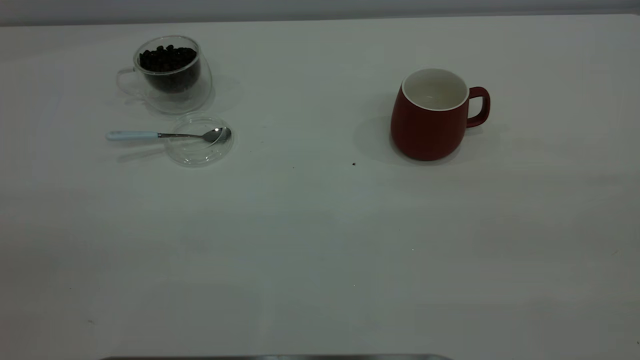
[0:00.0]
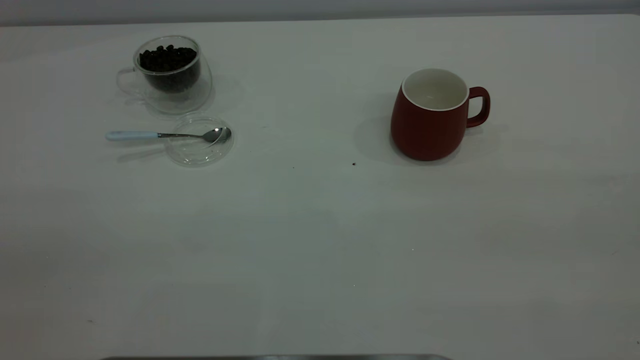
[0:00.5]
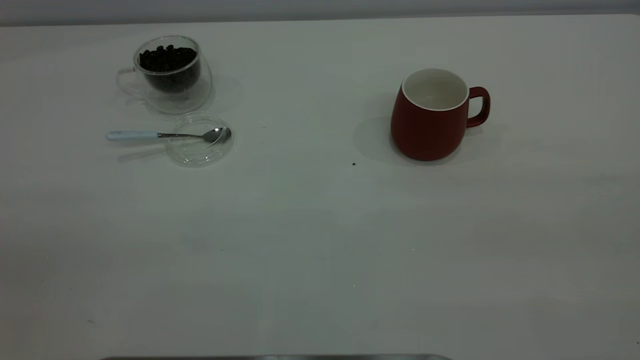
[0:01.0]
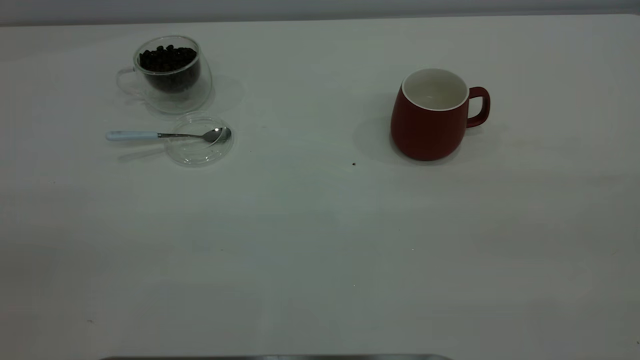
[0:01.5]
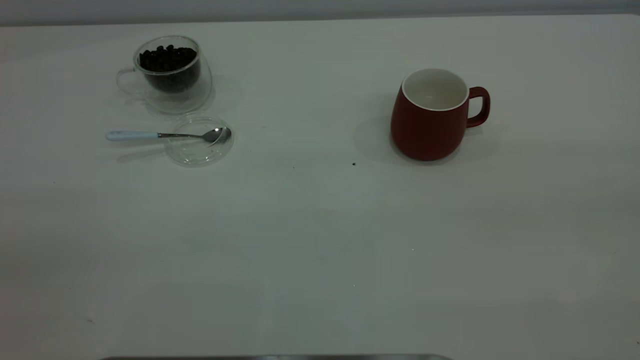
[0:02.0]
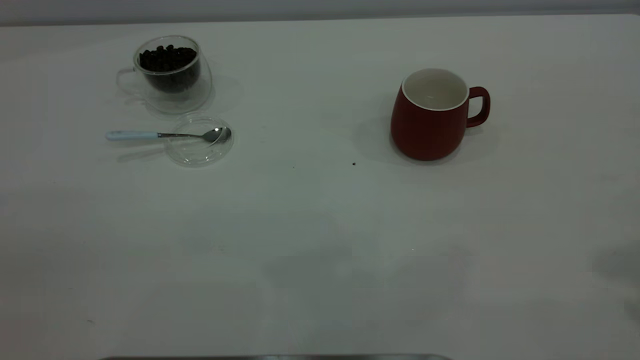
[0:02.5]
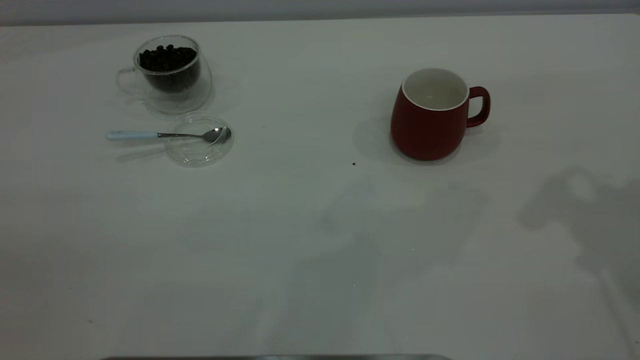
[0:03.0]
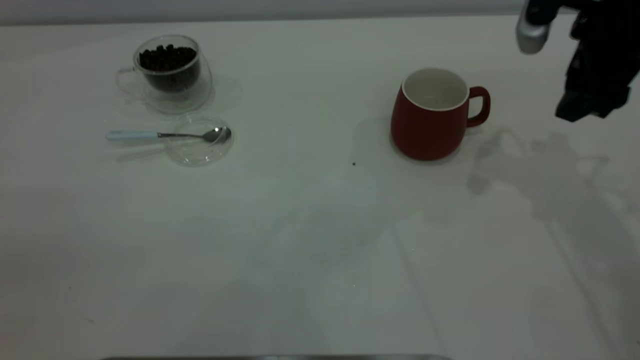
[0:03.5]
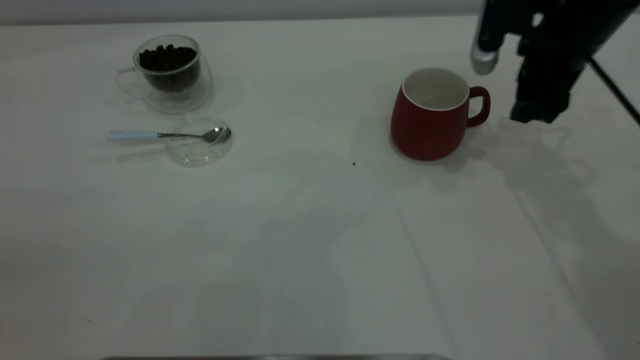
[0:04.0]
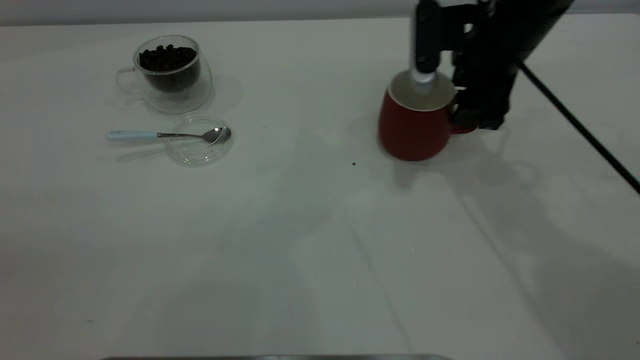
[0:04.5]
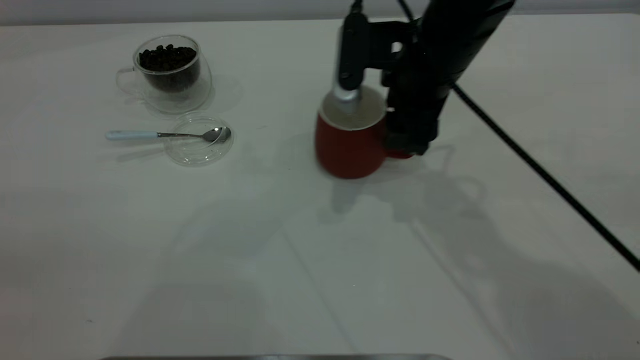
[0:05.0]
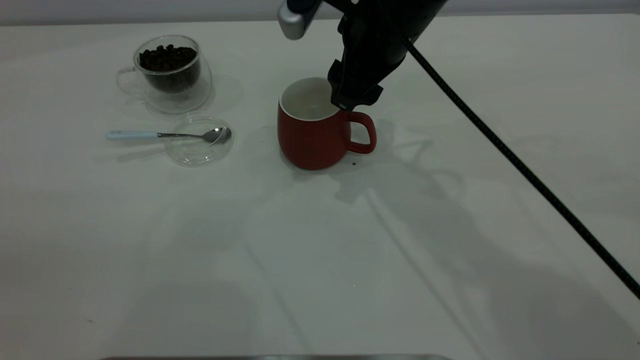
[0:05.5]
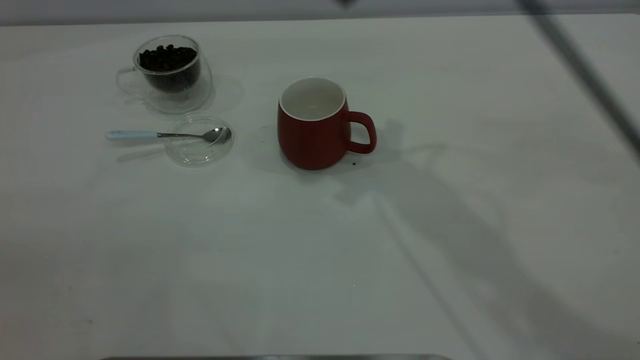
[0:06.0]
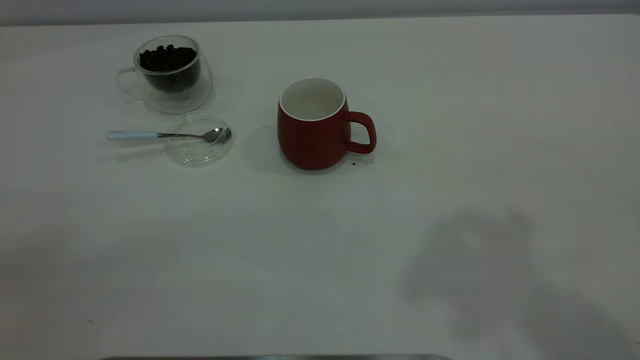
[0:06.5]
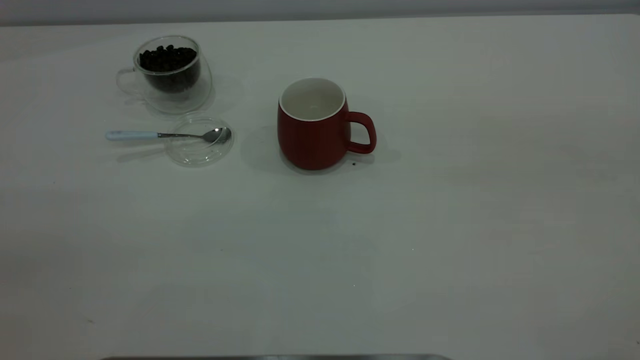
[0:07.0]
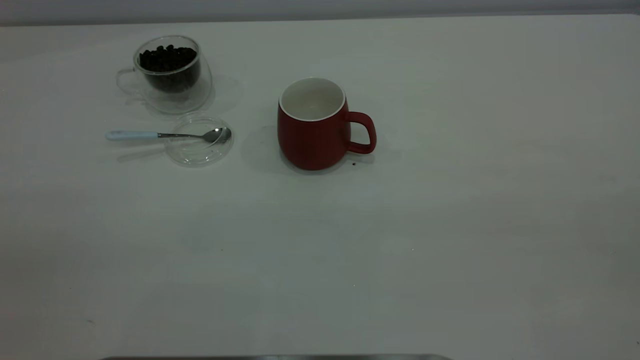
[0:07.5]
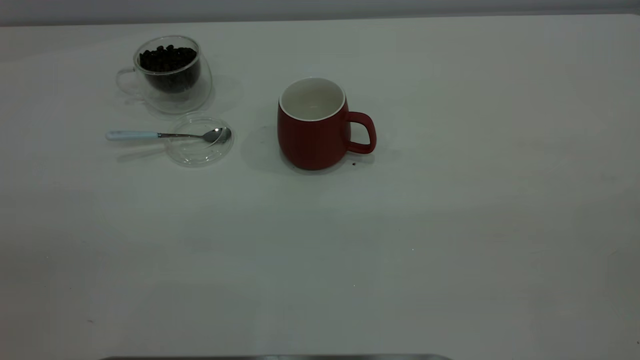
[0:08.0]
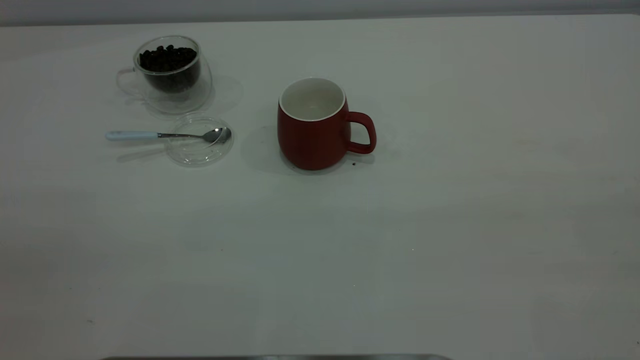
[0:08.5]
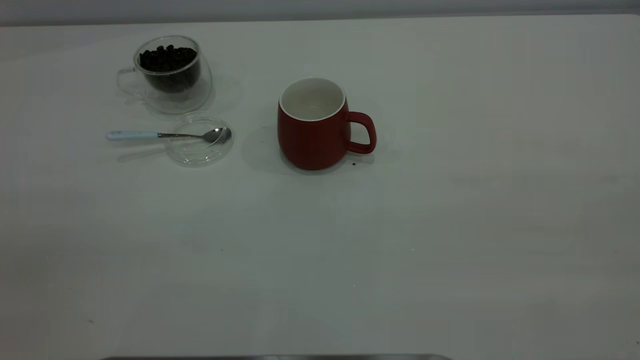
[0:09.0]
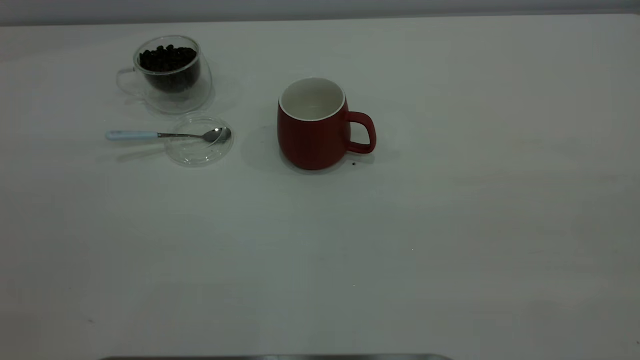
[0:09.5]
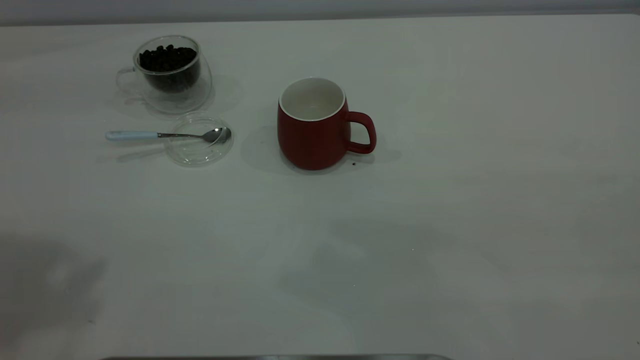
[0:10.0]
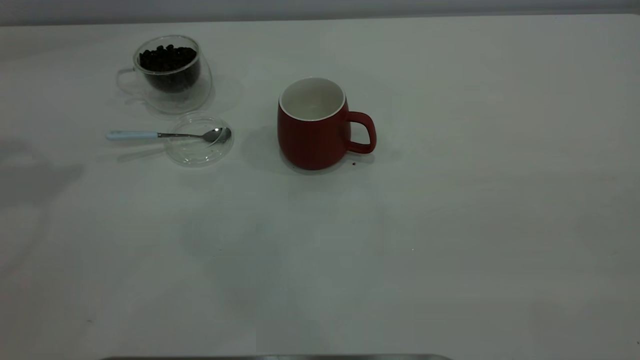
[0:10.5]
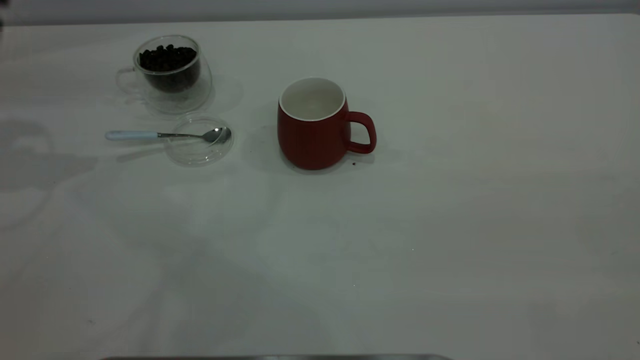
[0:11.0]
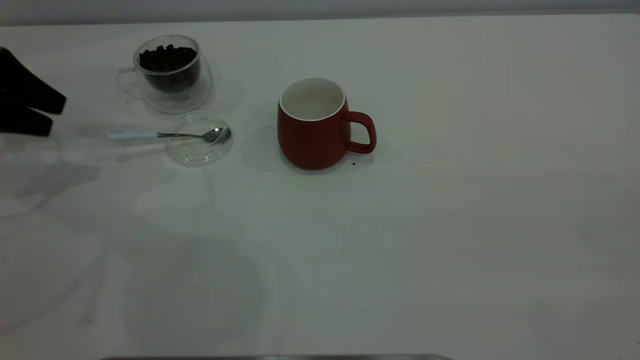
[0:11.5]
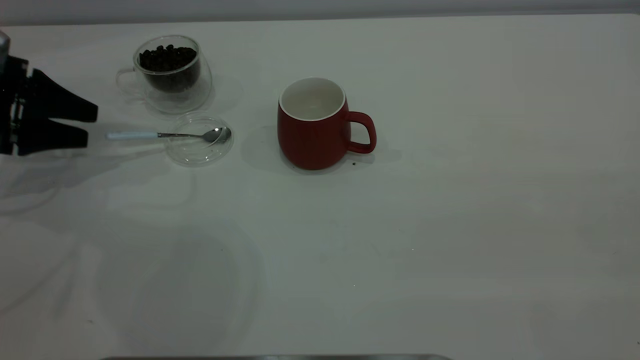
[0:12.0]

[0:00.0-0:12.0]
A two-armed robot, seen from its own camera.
Task of the whole recording: the right gripper place the red cup in the center of the table, the left gripper take the blue spoon from the cup lid and scoop out the coffee beans from the coffee cup and put them into the red cup, the left gripper put the spoon back into the cup lid.
Step, 0:00.0 to 0:05.5: Move the cup to the center of view.
0:02.0 to 0:04.0: The right gripper heads forward and downward, covering some 50 cm.
0:04.0 to 0:06.0: The right gripper goes some 25 cm upward and to the left.
0:06.0 to 0:08.0: The right gripper shifts approximately 40 cm backward and to the right.
0:10.0 to 0:12.0: The left gripper shifts approximately 40 cm downward and forward.

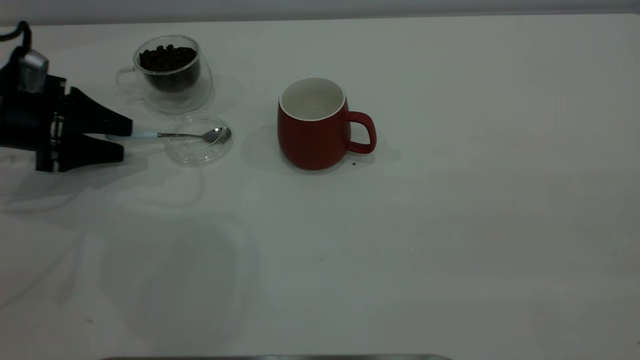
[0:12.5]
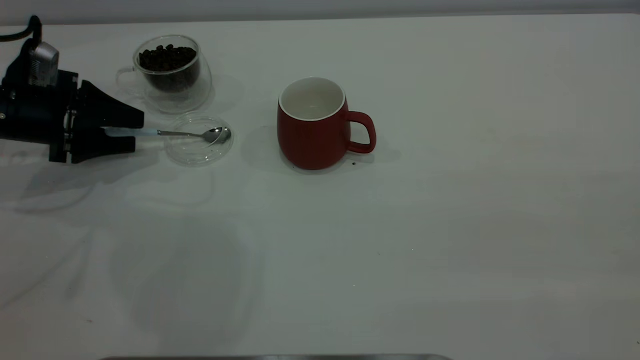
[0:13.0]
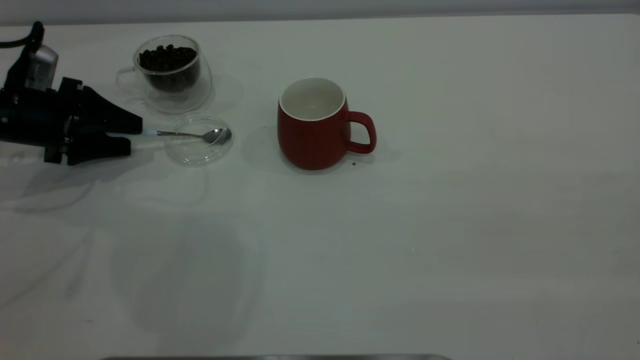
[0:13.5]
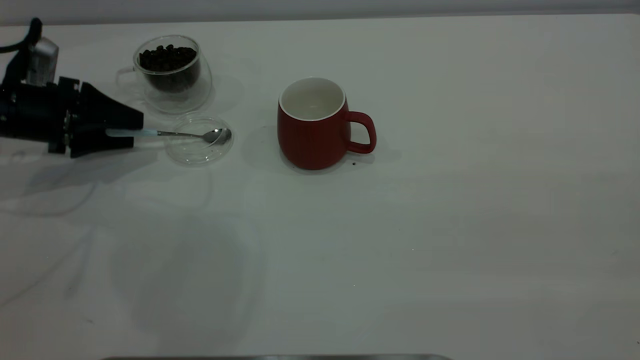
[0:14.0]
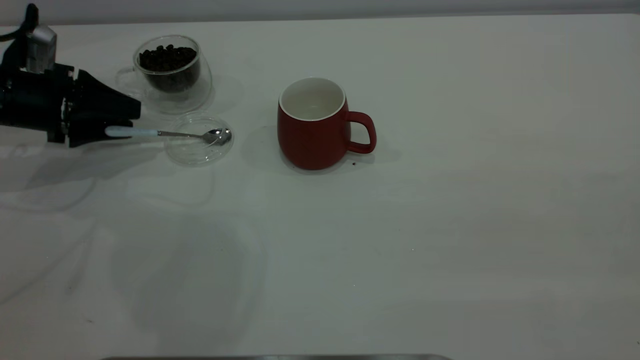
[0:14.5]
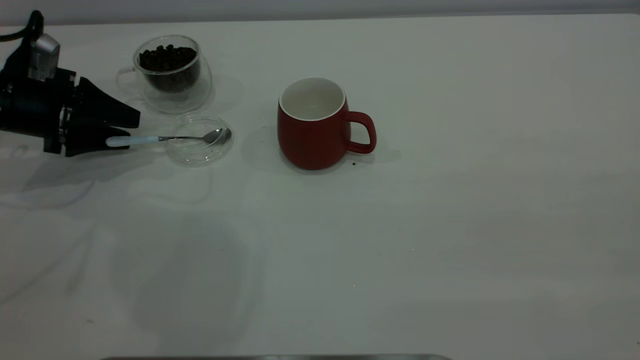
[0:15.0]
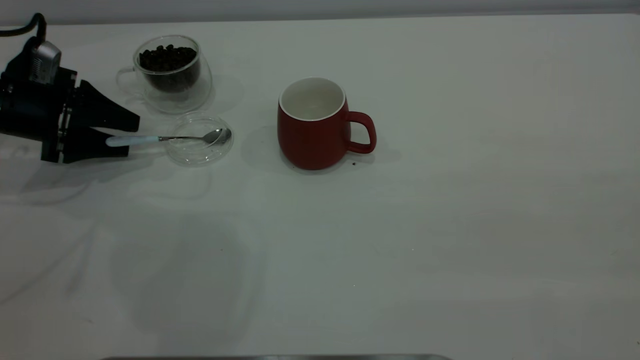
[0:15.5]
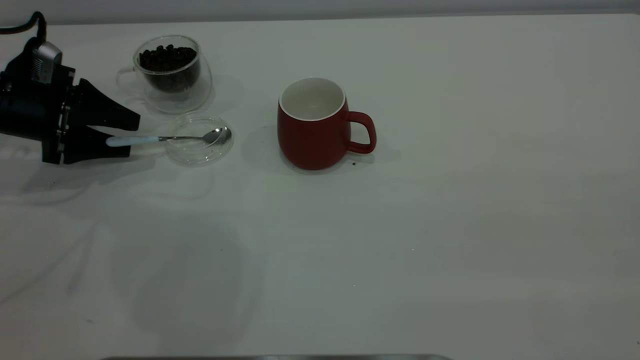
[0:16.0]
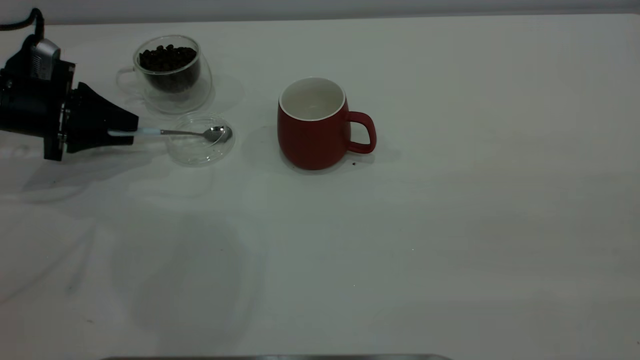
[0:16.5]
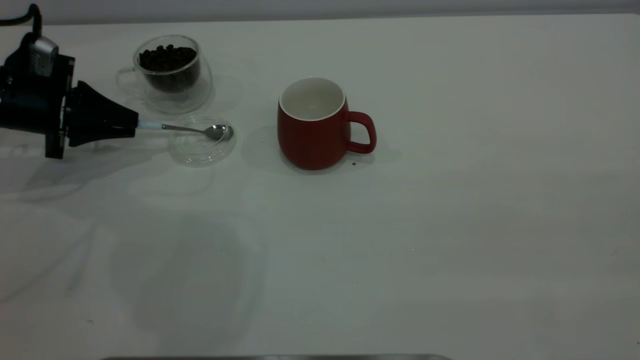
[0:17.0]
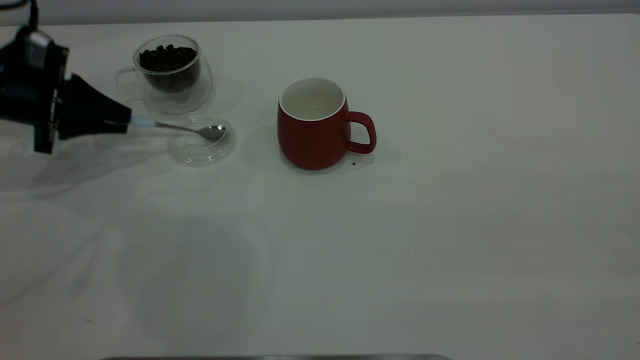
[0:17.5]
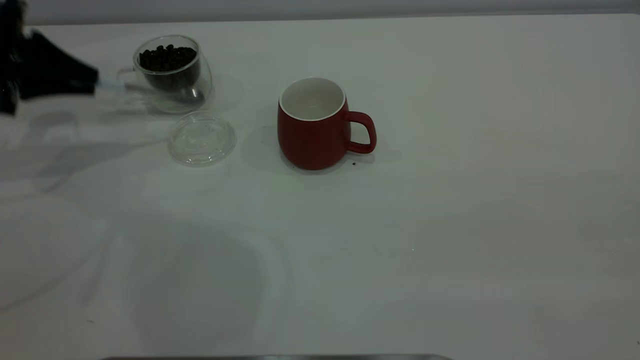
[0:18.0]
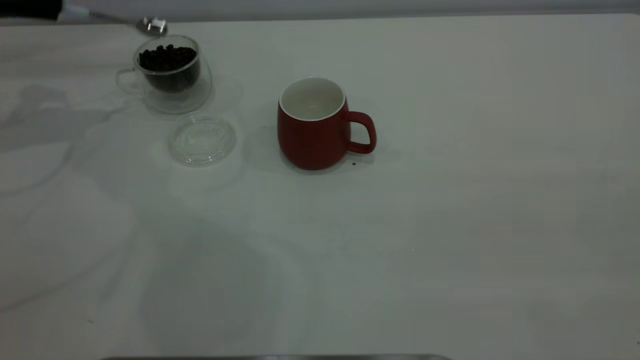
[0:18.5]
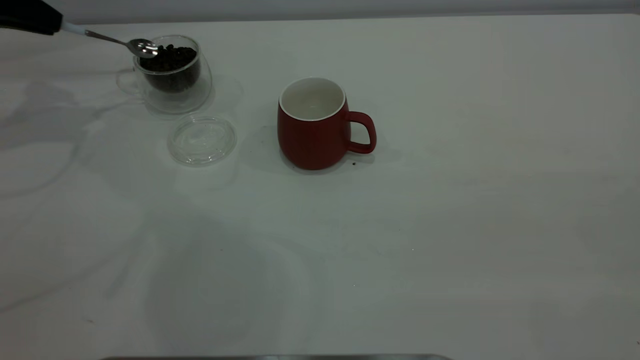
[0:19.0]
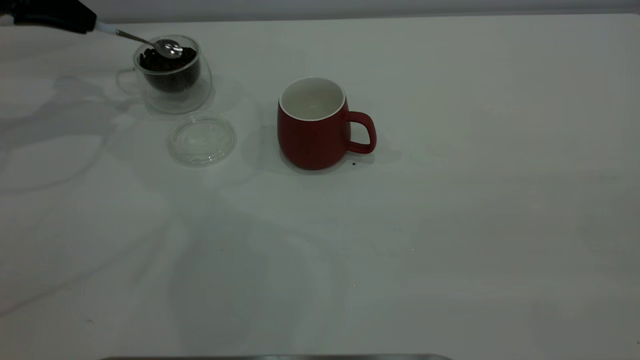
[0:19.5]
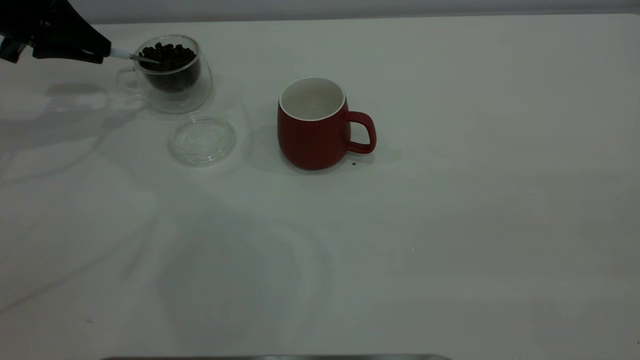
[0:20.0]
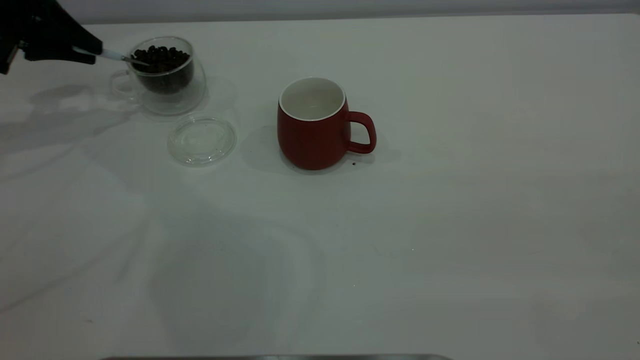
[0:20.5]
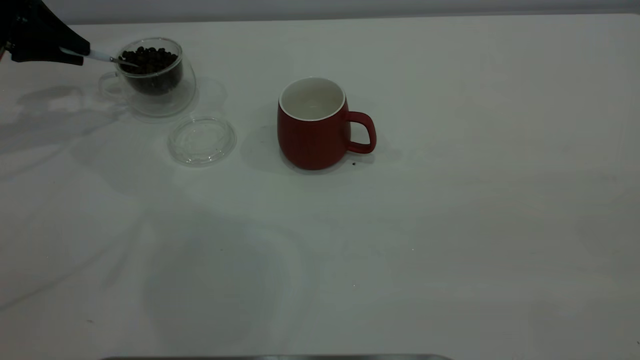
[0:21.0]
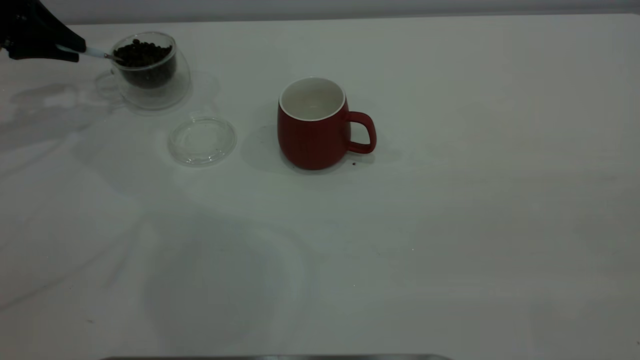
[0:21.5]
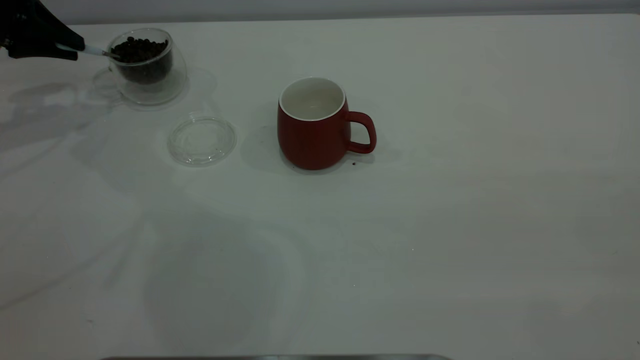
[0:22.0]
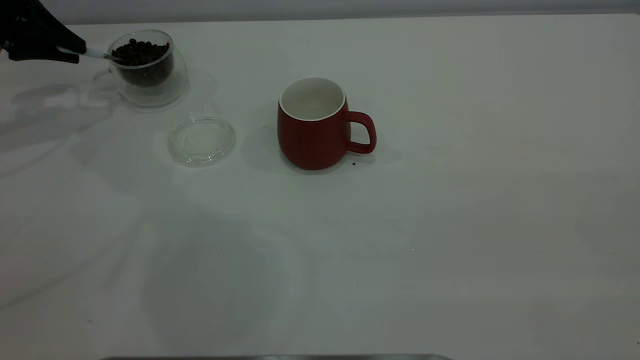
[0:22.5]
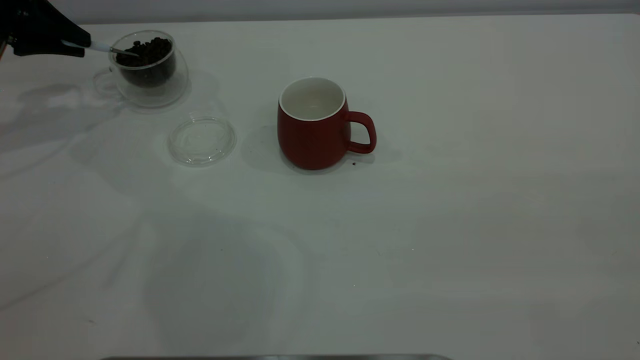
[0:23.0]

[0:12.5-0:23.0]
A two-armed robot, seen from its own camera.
Task of the whole recording: the right gripper place the red cup in the center of the table, the left gripper take the blue spoon from the cup lid and scoop out the coffee beans from the coffee cup and put them into the red cup, the left gripper put the spoon back into the cup lid.
Step, 0:12.5 to 0:18.0: Pick up the spoon.
0:12.5 to 0:14.5: The grippers make only small movements.
0:14.5 to 0:16.5: The left gripper closes its fingers.
0:16.5 to 0:19.0: The left gripper moves upward and forward, about 15 cm.
0:21.0 to 0:23.0: There are only small adjustments of the grippers.
